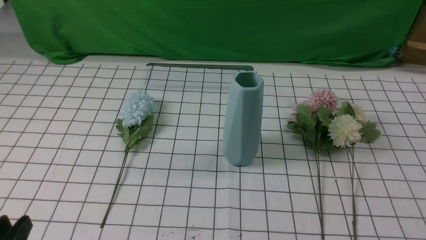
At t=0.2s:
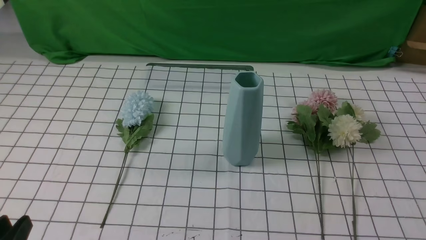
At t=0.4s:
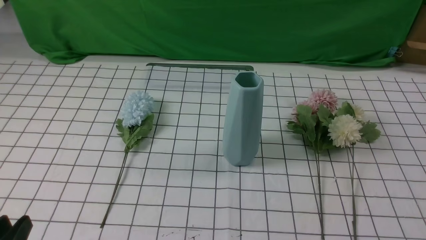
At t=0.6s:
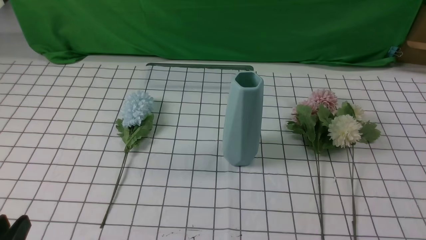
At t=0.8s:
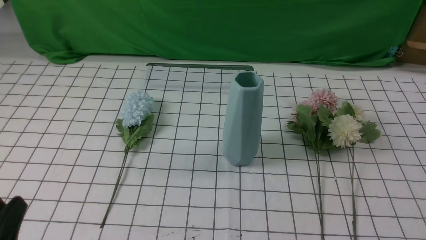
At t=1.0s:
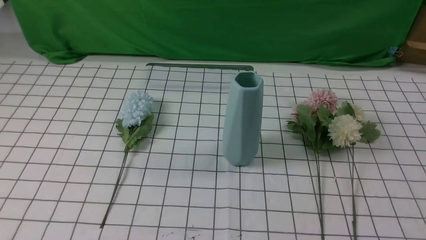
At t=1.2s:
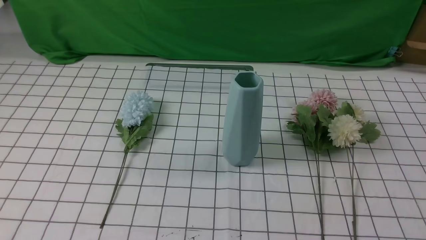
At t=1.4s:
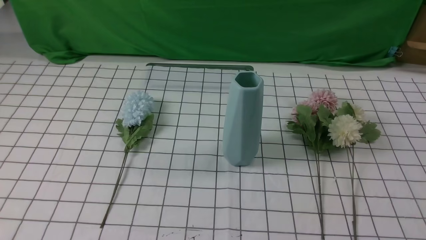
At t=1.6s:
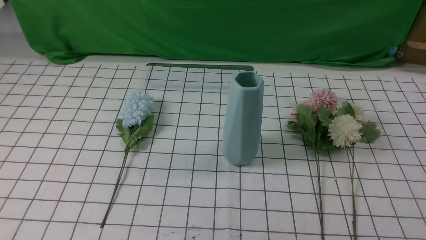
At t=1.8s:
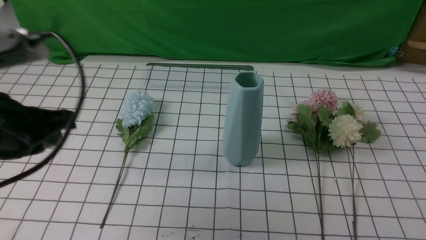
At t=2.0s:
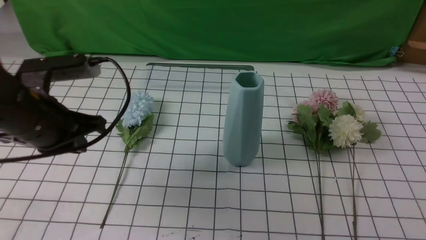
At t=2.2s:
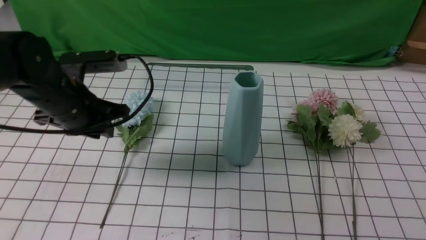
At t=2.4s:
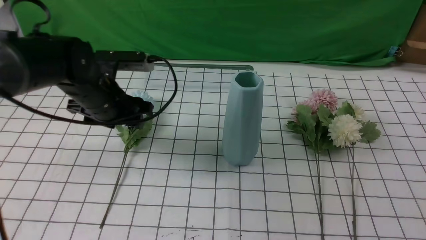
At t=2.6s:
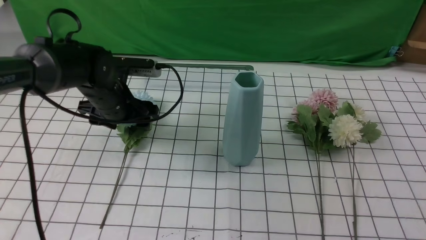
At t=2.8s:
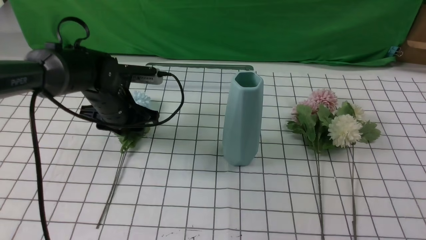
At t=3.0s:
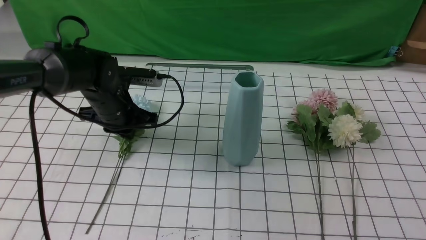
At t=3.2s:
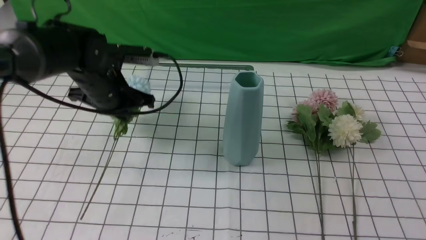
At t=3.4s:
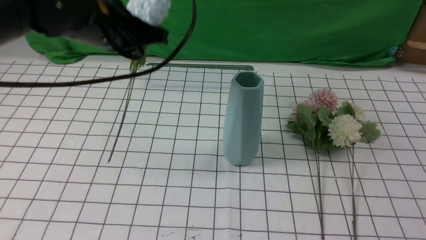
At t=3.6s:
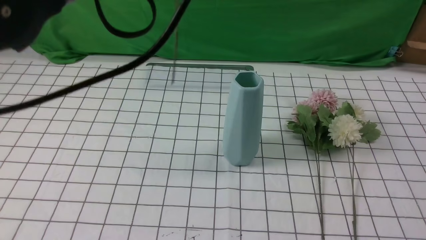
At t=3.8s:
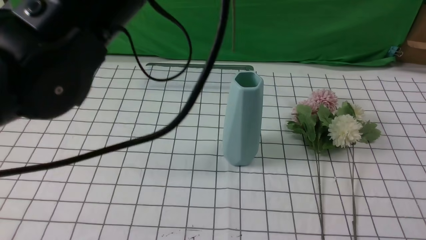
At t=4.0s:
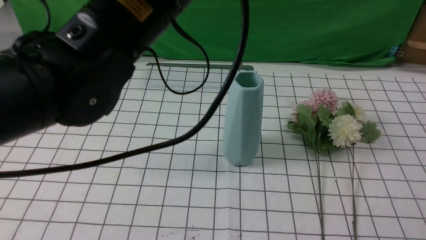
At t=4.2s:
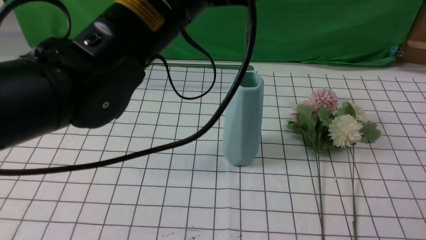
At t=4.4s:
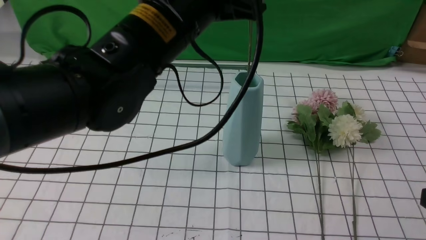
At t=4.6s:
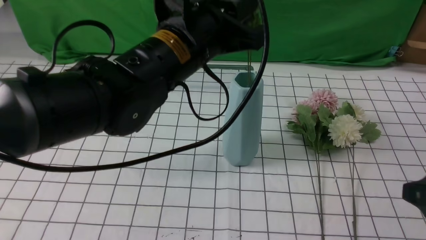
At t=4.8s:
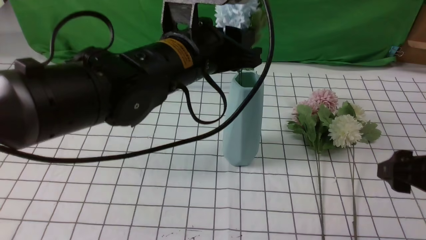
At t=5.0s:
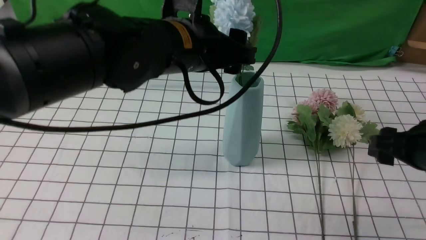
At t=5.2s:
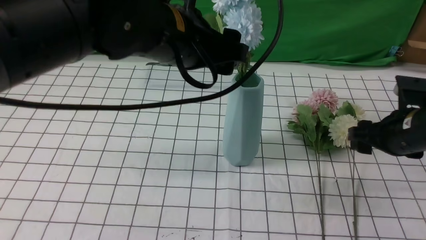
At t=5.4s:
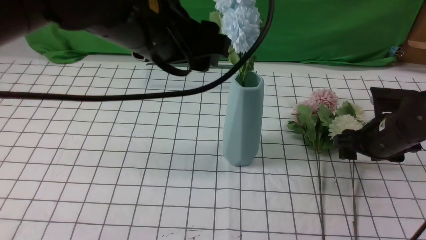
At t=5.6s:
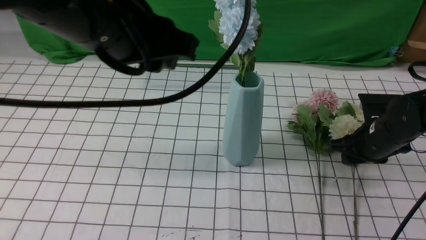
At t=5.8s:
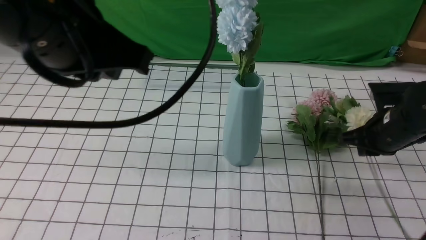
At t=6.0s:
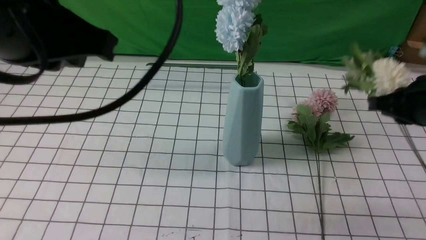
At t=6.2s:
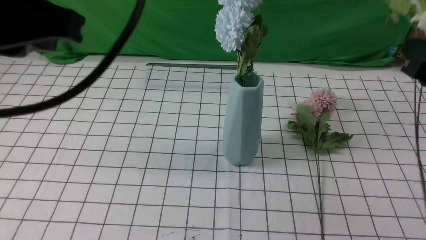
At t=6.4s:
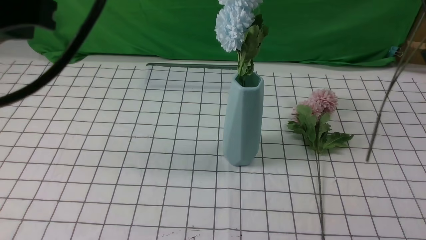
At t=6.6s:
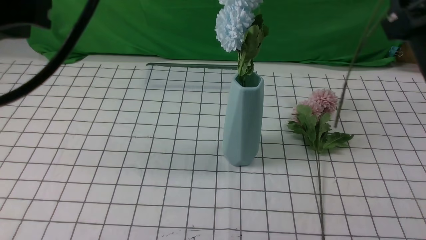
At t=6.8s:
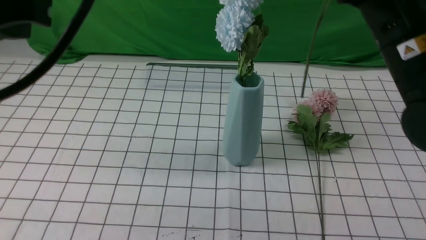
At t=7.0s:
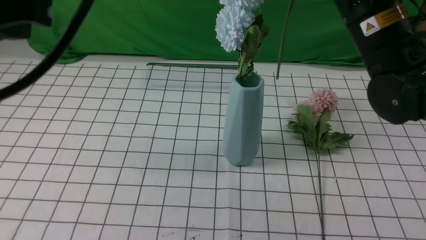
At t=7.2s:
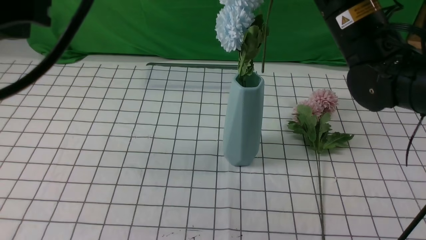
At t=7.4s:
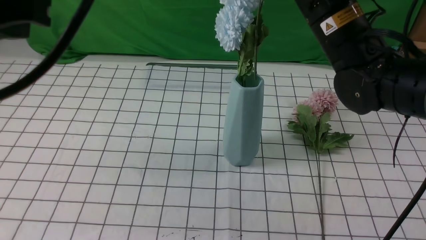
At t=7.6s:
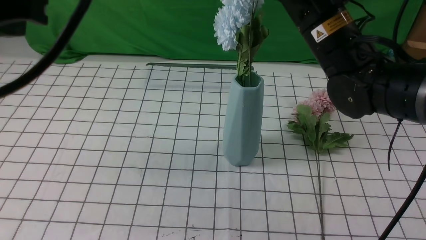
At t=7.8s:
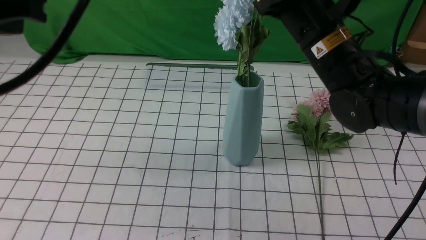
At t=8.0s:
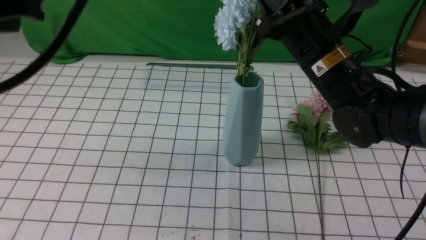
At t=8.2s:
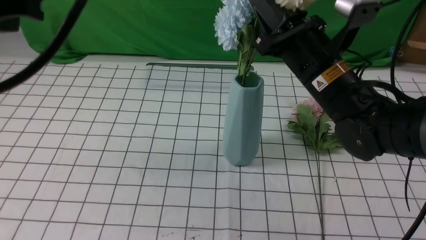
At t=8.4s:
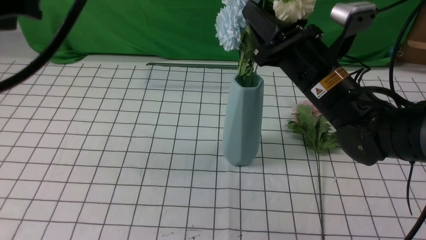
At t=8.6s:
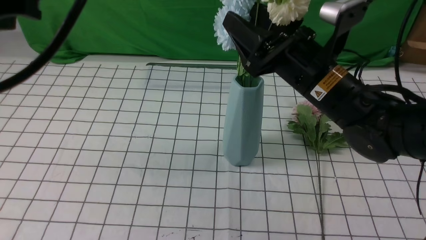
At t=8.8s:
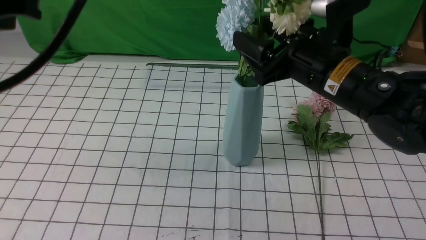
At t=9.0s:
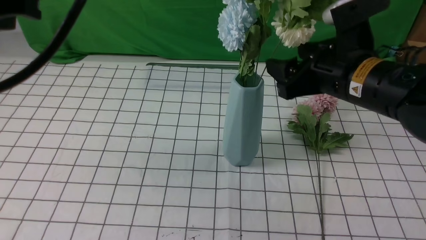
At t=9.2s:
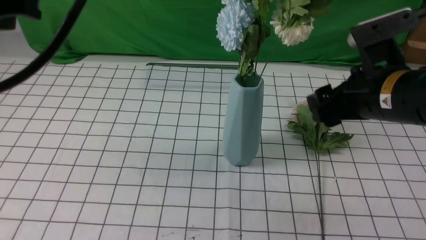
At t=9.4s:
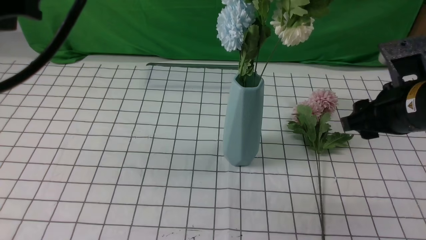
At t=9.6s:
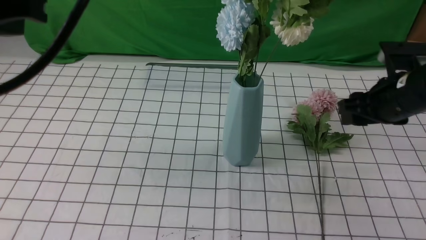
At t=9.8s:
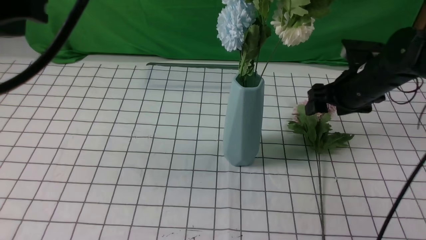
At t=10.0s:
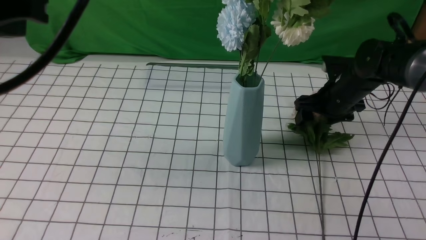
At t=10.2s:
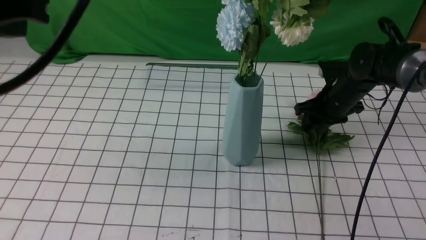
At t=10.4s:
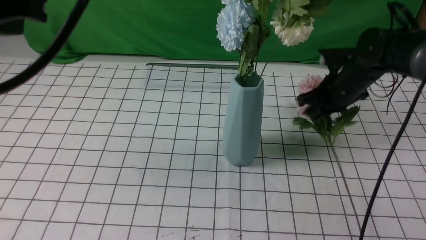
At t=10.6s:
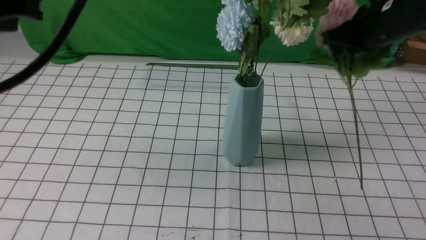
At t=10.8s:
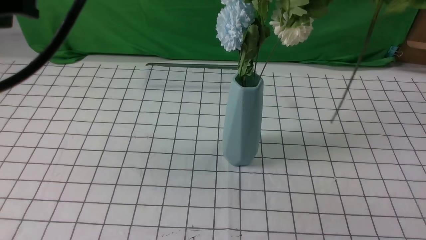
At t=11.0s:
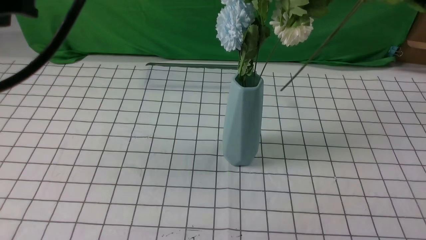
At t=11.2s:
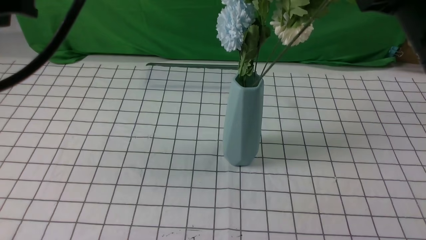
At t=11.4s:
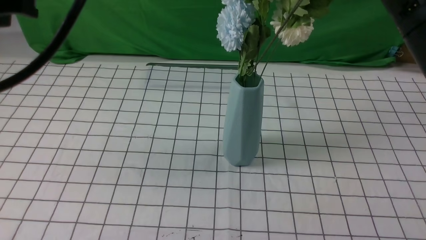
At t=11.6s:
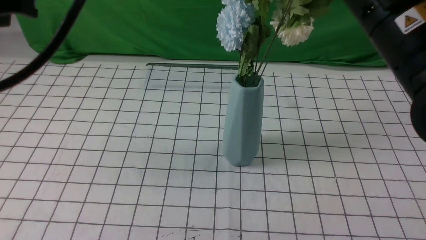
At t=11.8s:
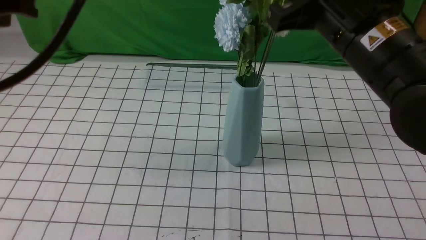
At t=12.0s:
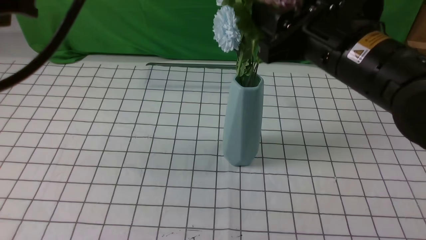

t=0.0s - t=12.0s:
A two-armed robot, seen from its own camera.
Task of the whole recording: insert the flowers into the vase on the table with the white tablecloth.
Step, t=0.0s - t=2.8s: use the left arm to grab a bunch of fresh flowers.
Step, t=3.2s - t=5.0s: use the left arm to insert the flowers into the vase.
Step, t=5.2s - t=5.6s: use the right arm to grab a bunch of fresh flowers.
Step, t=6.0s - t=9.0s: use the right arm to insert the flowers into the vase.
Step, t=9.2s - t=10.2s: use the right arm to grab a bunch of fresh flowers.
t=0.0s - t=1.6s: The left gripper shifts some 20 cm upward and forward, and closes up.
t=1.6s - t=3.0s: The left gripper heads forward and downward, covering roughly 30 cm, and opens, then closes again. The right gripper moves upward, roughly 5 cm, and opens.
t=3.0s - t=4.4s: The left gripper moves upward, to the right and backward, approximately 25 cm.
t=4.4s - t=6.0s: The left gripper heads backward, to the left and upward, covering approximately 15 cm, and opens, then closes once more, while the right gripper shifts roughly 15 cm forward, and closes up.
t=6.0s - t=7.6s: The right gripper is displaced to the left and forward by some 15 cm.
t=7.6s - t=9.0s: The right gripper travels backward by approximately 5 cm, and opens up.
t=9.0s - t=10.4s: The right gripper goes approximately 15 cm forward, to the right and downward, and closes.
t=10.4s - t=12.0s: The right gripper heads backward, upward and to the left, covering roughly 20 cm, and opens up.

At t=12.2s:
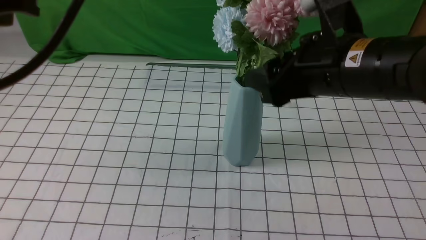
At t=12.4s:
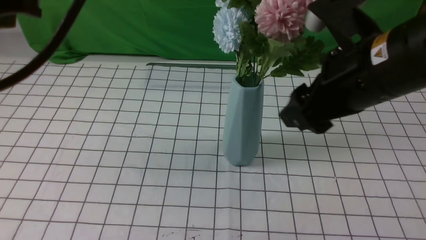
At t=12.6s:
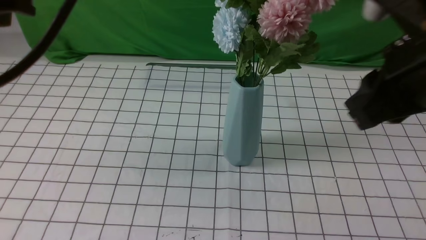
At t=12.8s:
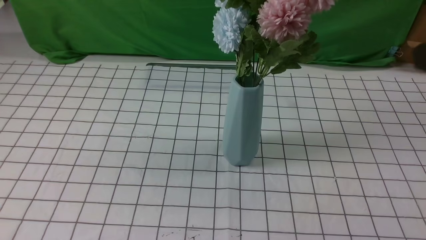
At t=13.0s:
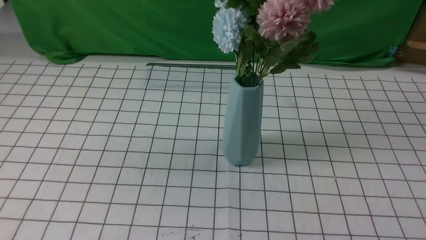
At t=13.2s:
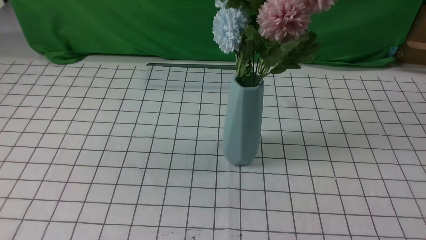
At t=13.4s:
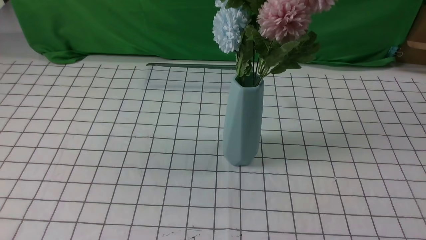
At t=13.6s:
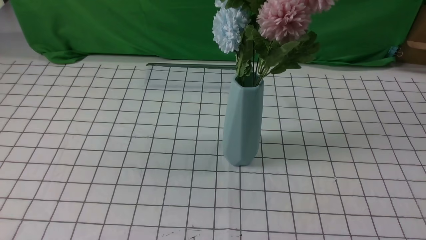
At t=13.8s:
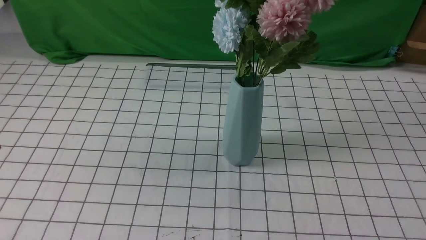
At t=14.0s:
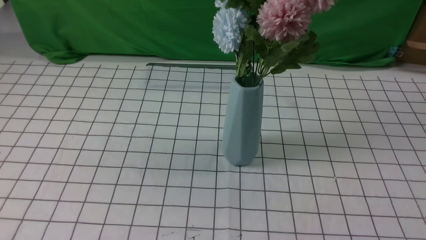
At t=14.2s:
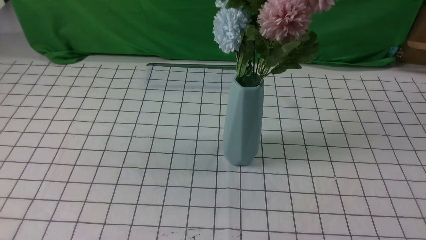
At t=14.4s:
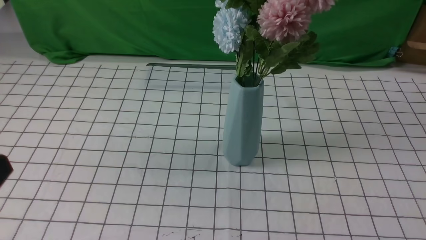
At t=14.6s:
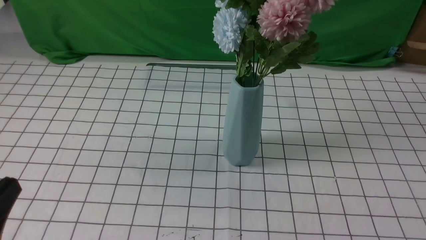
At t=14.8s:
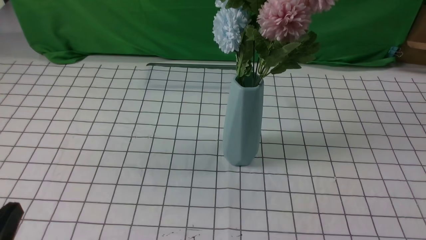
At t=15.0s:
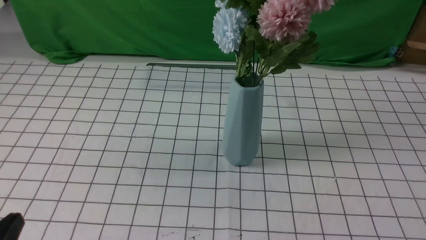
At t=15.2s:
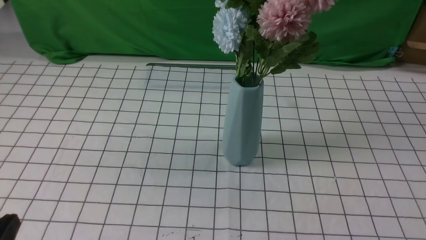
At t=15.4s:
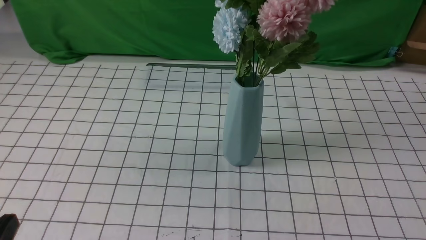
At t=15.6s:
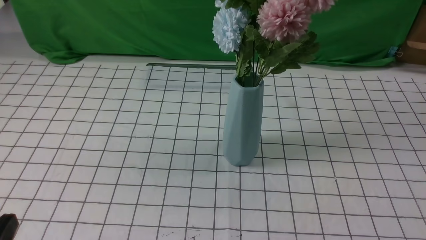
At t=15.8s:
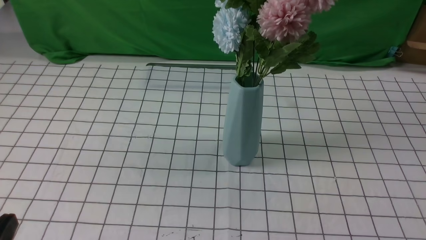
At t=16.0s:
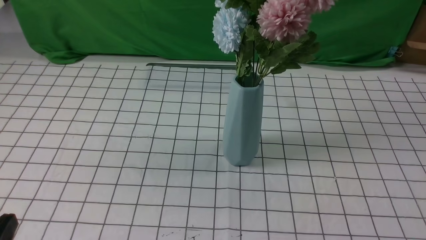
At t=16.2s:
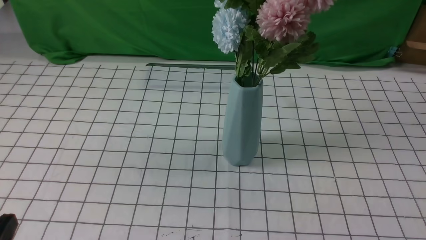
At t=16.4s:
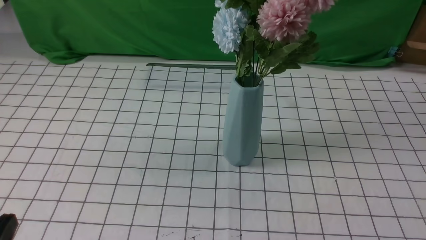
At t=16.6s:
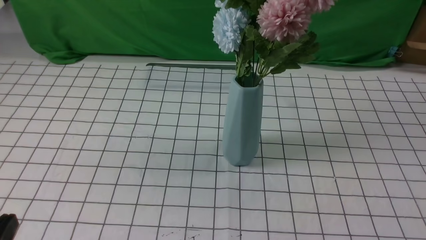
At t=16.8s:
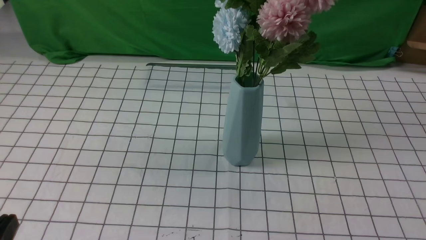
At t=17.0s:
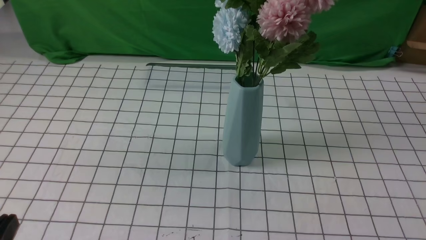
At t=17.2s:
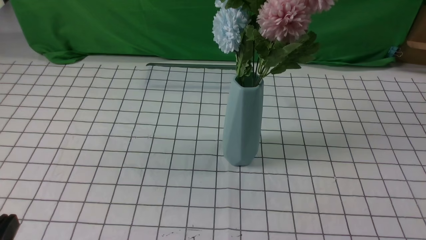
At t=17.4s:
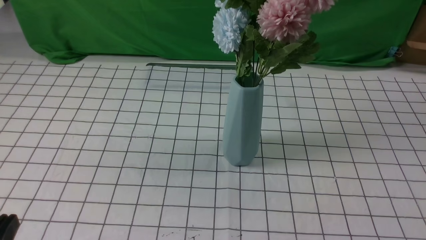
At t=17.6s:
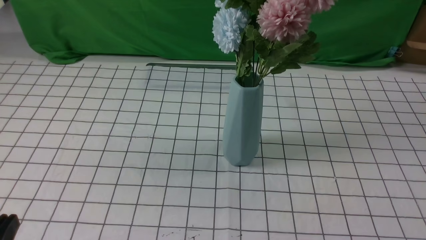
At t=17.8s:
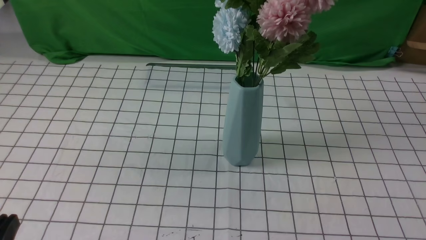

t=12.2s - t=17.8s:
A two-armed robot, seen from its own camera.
Task of the whole recording: insert the flowers into the vase on the table with the white tablecloth.
t=12.2s - t=13.6s: The left gripper is displaced downward, backward and to the left by some 20 cm. Meanwhile the right gripper goes roughly 30 cm backward and to the right, and closes.
